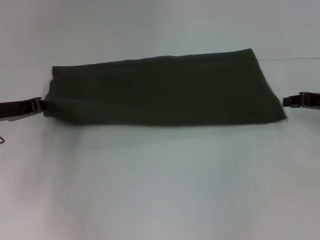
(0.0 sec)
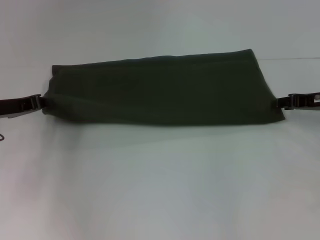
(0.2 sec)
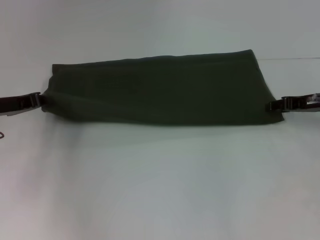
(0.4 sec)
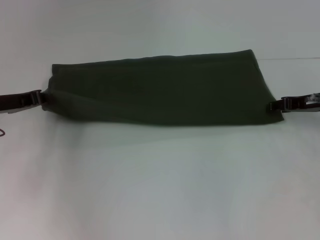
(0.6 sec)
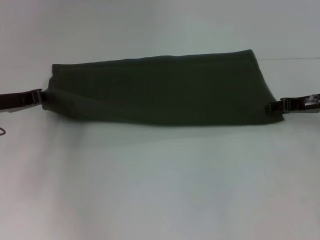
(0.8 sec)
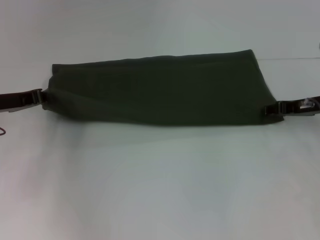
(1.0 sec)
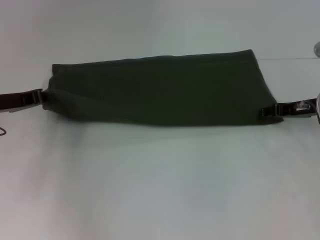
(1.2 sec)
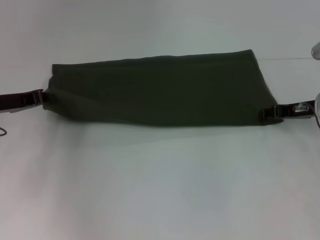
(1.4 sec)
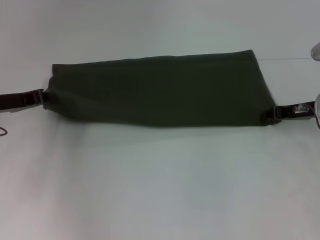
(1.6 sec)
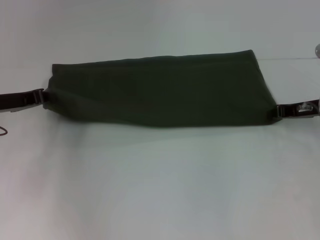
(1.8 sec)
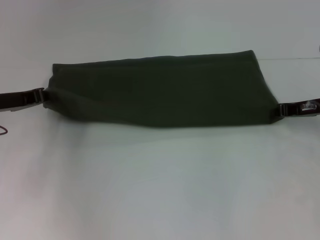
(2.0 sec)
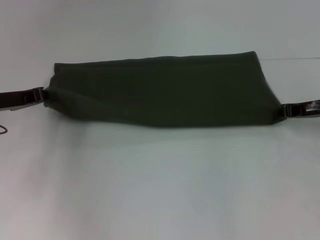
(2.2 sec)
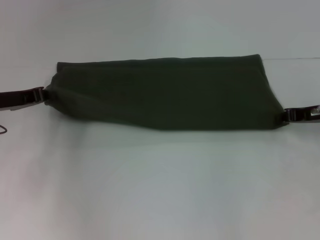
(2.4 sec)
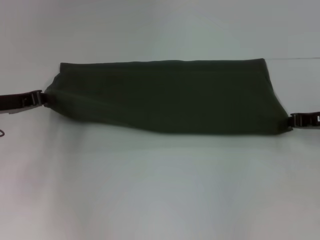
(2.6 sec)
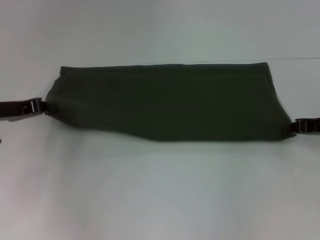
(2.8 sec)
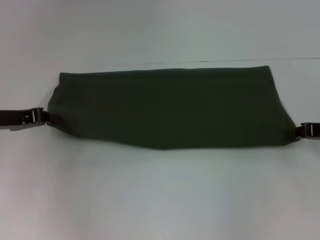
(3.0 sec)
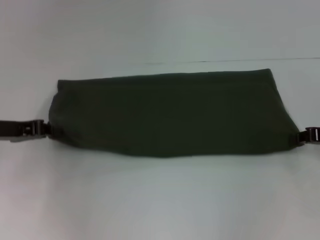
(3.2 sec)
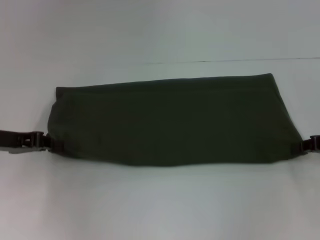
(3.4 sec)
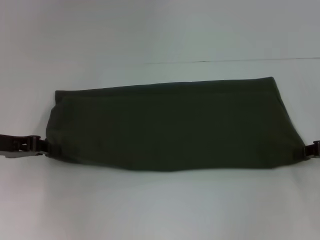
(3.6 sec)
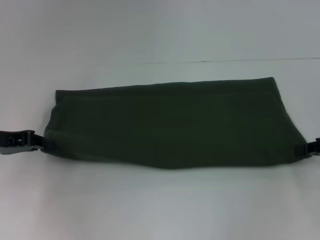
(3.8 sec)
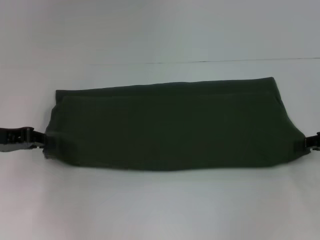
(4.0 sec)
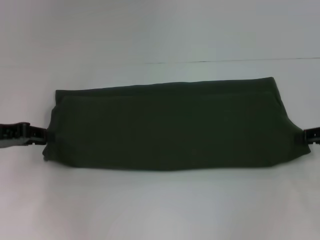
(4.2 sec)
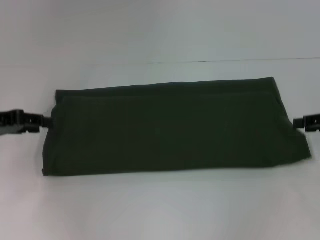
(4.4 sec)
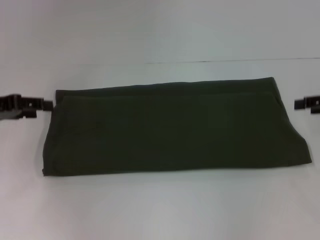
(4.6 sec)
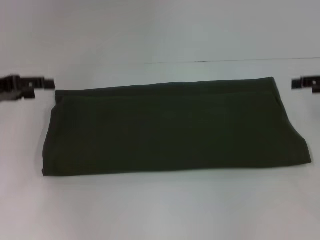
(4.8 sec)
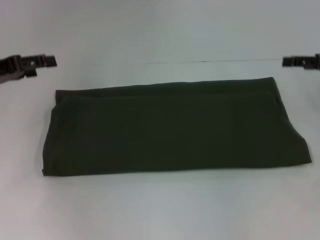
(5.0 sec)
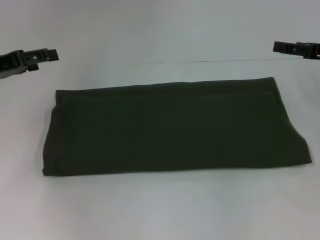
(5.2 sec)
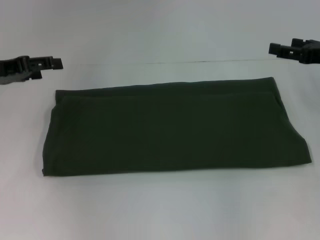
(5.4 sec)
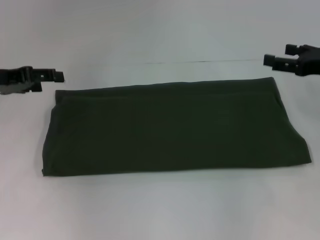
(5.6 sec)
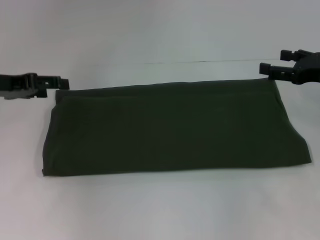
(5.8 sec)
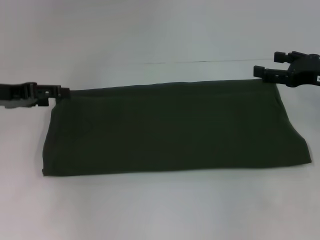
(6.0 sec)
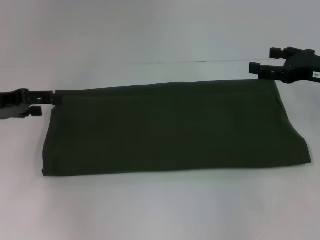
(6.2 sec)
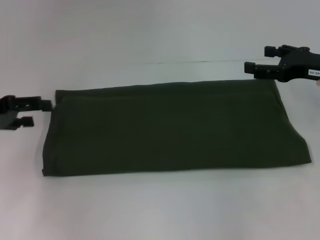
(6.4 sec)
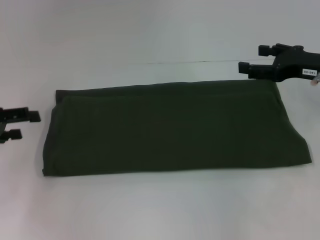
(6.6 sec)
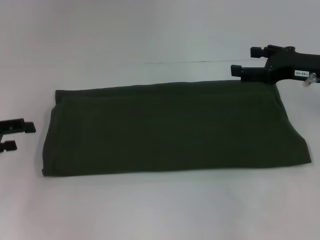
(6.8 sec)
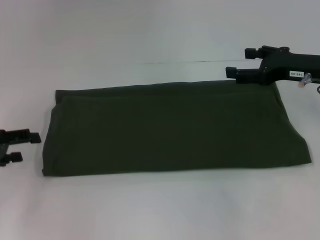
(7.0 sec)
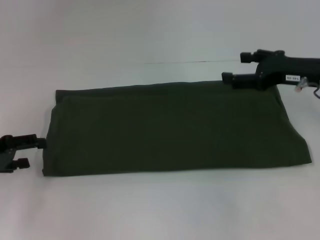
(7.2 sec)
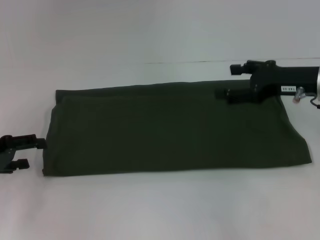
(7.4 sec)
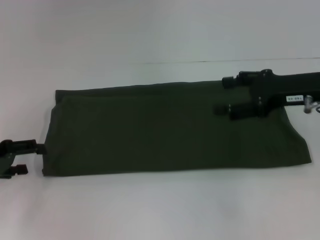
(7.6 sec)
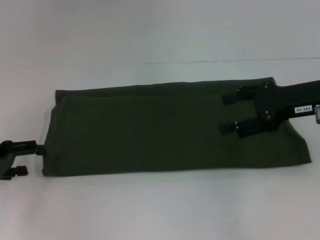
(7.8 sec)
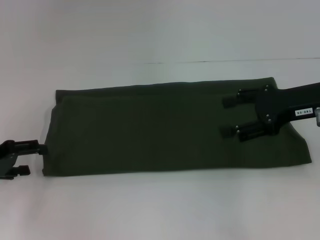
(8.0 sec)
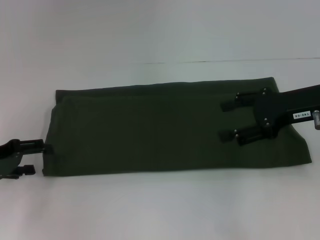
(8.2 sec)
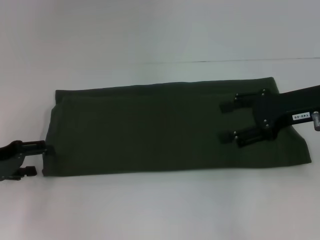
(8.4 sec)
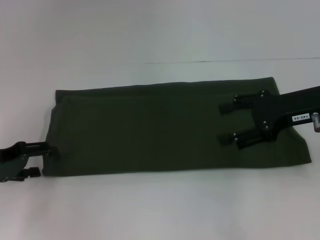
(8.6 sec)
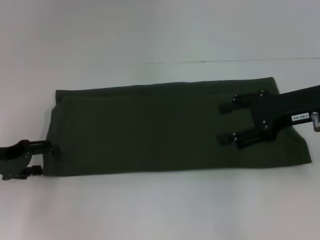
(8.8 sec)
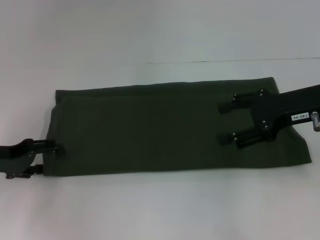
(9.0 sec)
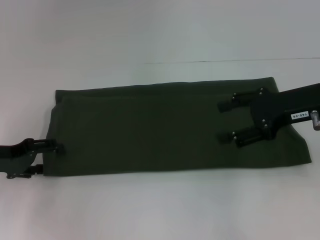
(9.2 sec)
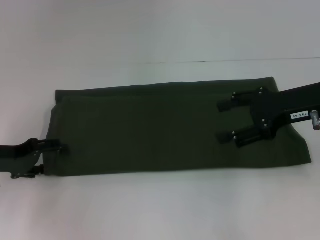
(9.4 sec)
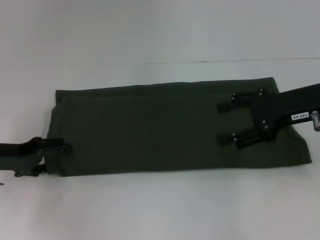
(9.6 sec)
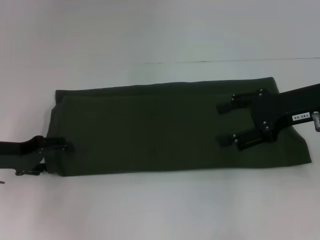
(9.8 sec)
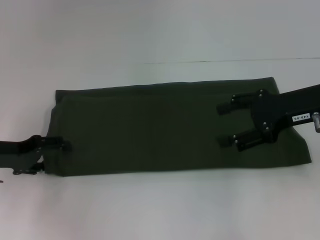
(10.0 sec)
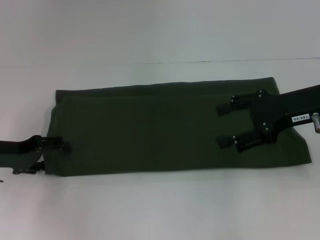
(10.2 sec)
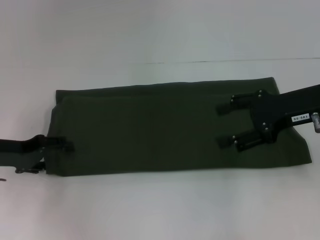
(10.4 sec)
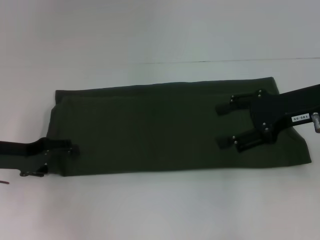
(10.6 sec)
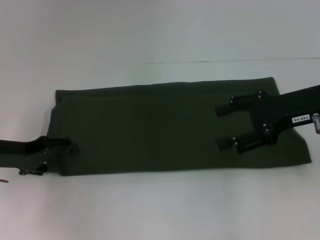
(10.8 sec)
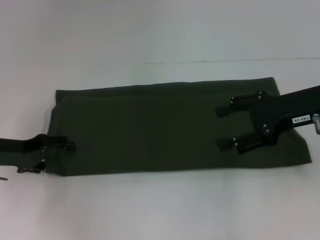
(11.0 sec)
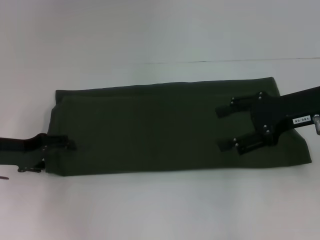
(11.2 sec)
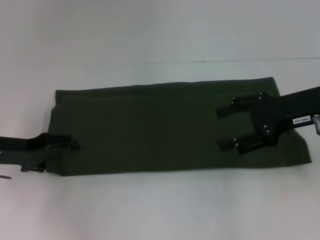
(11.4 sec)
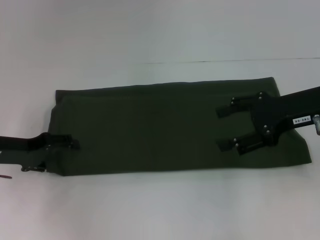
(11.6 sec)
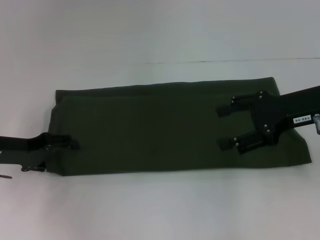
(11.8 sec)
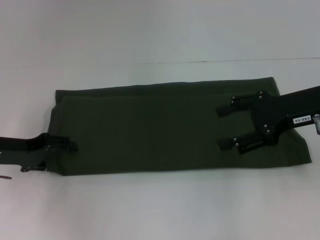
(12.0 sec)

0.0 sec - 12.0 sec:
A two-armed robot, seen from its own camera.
Step, 0.0 sec - 4.2 sec: Pull the clothes with your left hand.
0.0 sec - 1.6 sec: The right gripper shifts by roughly 5 cm.
1.6 sec - 3.0 sec: The right gripper heads backward and to the right, covering about 5 cm, and closes up.
3.0 sec - 4.4 sec: The right gripper opens up.
4.4 sec - 6.0 sec: The right gripper travels to the left by approximately 5 cm, and opens, while the left gripper opens its fingers.
6.0 sec - 7.6 sec: The left gripper travels backward and downward by some 10 cm; the right gripper shifts some 5 cm to the left.
7.6 sec - 10.4 sec: The grippers stay close to where they were, moving slightly.
10.4 sec - 12.0 sec: Neither gripper changes place.

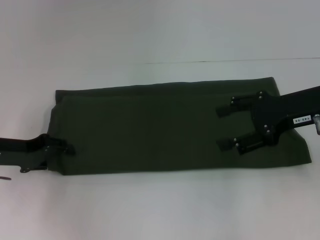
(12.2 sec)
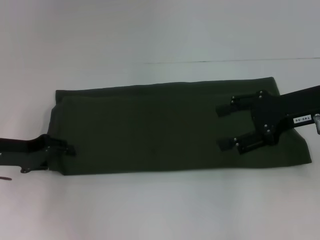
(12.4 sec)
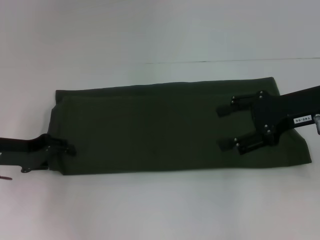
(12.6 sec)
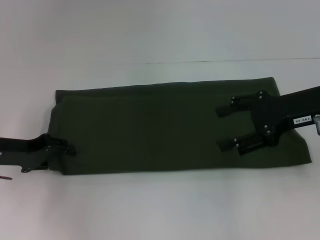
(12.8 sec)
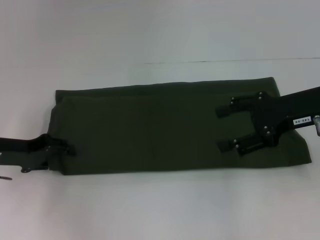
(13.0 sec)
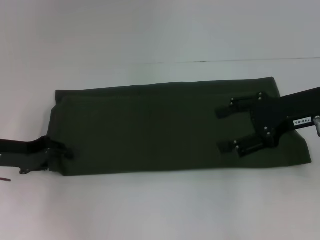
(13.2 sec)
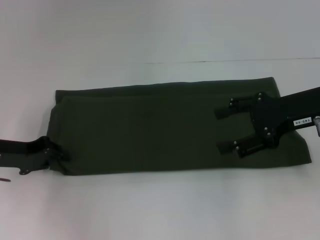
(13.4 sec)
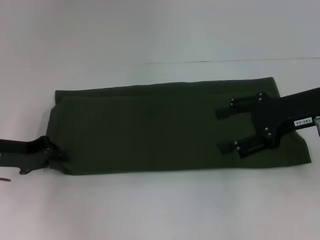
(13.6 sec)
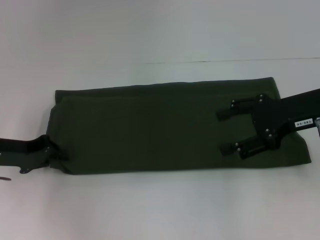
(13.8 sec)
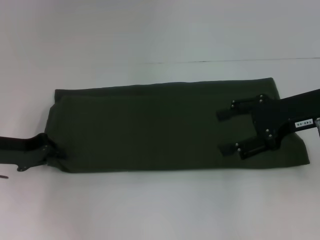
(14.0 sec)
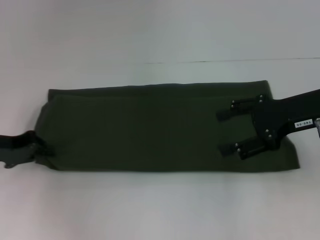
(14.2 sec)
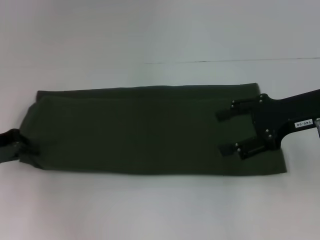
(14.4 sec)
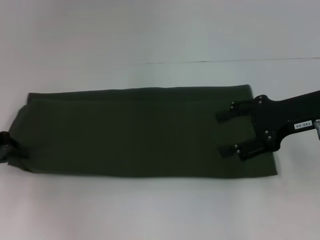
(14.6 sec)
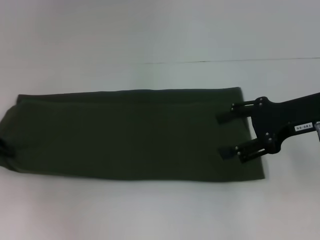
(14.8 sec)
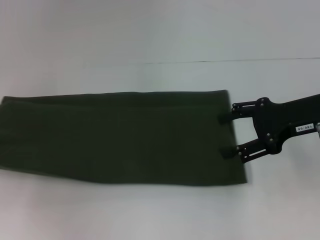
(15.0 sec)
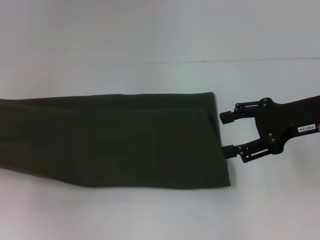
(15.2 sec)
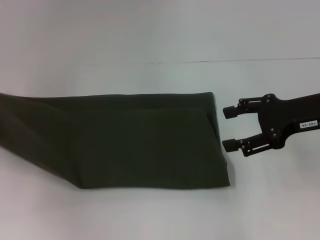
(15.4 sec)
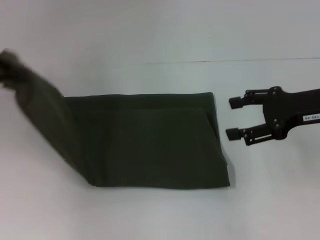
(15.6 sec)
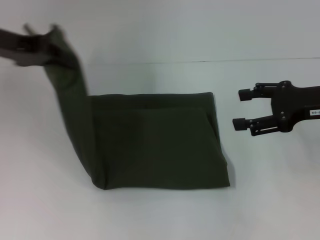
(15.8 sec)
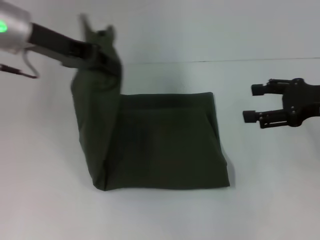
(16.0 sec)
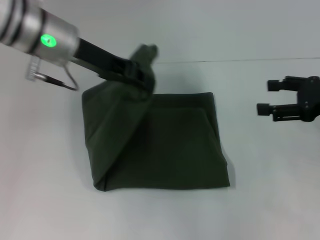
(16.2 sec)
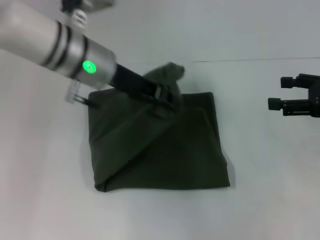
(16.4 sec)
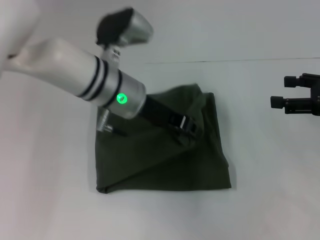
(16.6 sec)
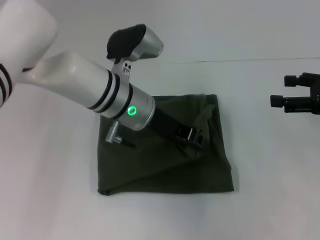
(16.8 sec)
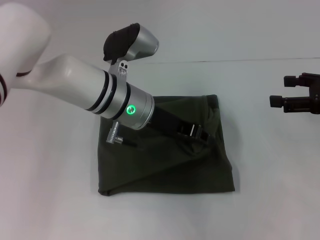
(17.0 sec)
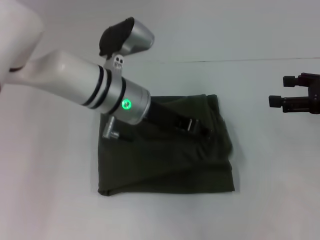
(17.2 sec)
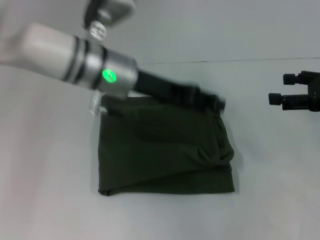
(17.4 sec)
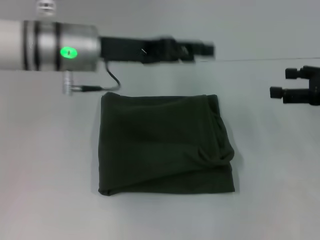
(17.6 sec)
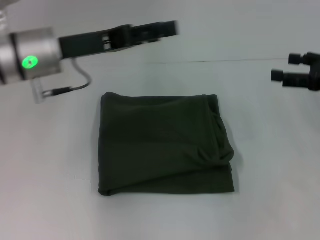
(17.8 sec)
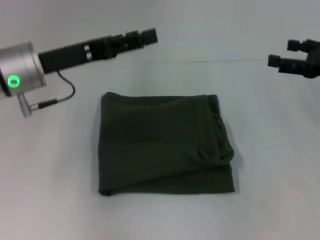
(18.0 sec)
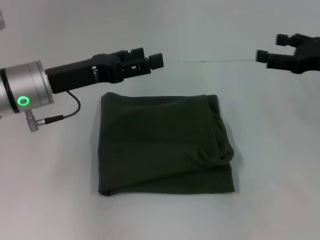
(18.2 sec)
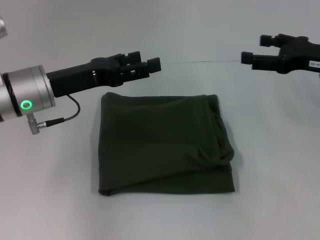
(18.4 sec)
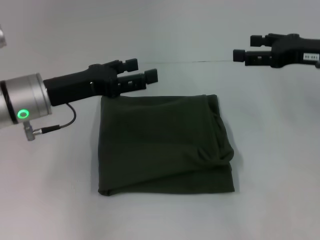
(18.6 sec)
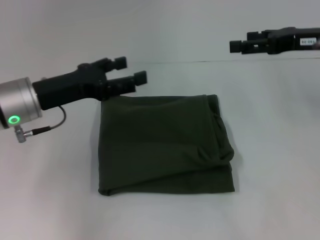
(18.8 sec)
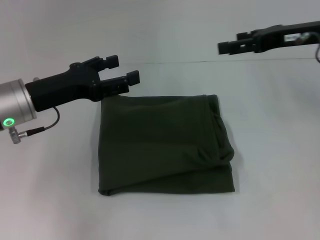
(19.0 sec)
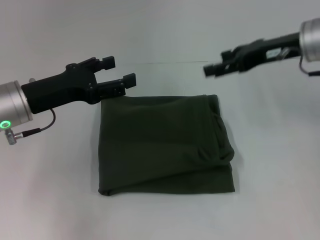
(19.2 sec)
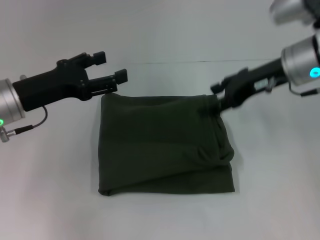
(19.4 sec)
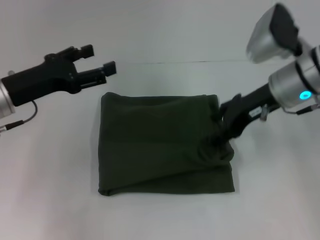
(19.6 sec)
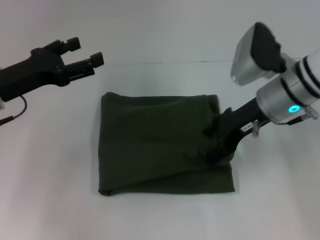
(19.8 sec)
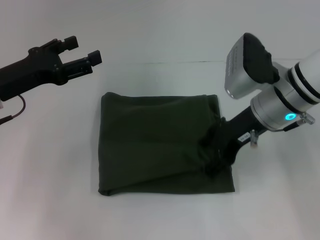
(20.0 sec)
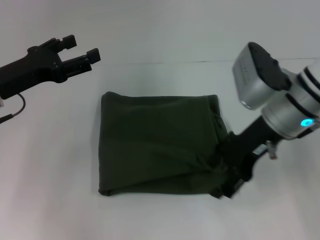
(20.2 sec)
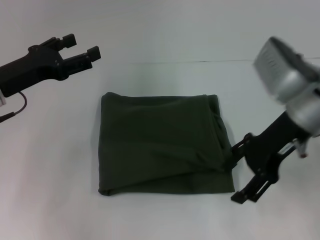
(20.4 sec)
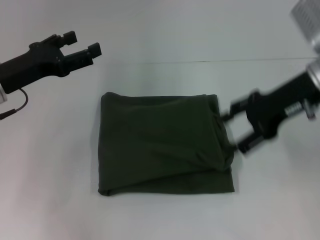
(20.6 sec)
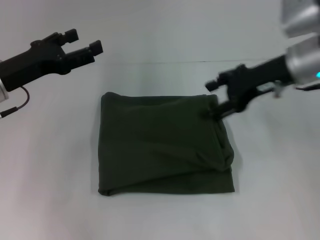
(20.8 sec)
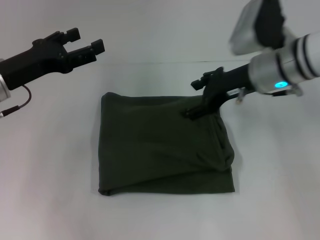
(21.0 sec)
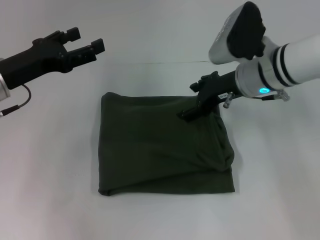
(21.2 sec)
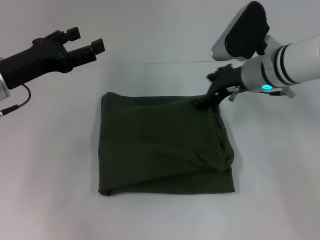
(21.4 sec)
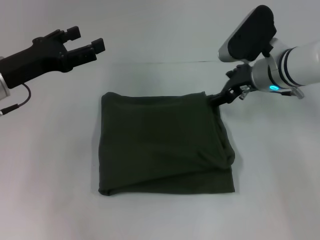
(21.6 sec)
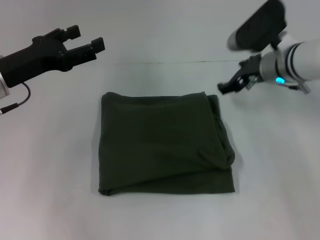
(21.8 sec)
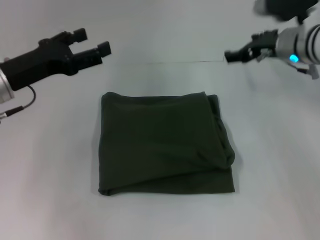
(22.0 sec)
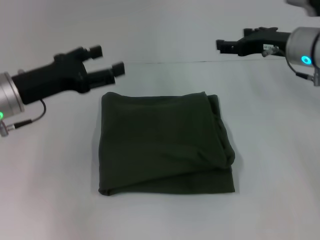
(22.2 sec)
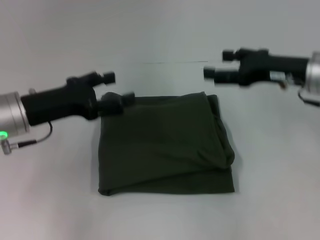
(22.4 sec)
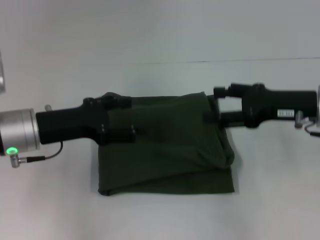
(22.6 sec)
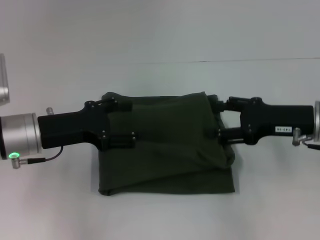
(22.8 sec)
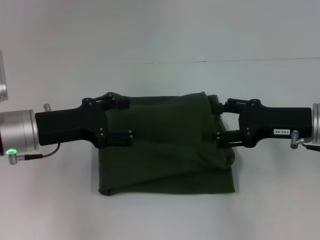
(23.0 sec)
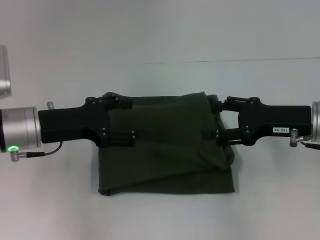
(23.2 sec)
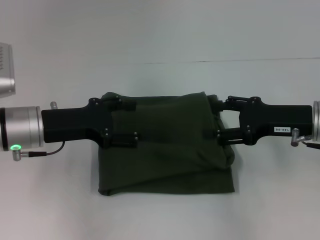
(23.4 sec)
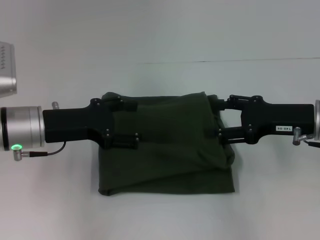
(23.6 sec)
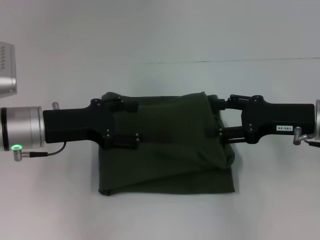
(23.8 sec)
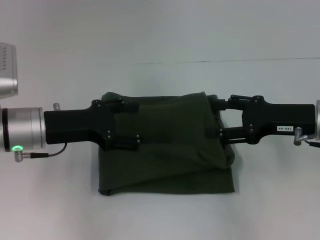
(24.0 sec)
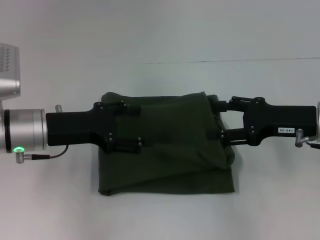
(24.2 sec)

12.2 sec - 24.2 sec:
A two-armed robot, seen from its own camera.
Step, 12.2 sec - 17.2 sec: Fold the clothes with your left hand.
13.8 sec - 15.2 sec: The left gripper goes about 15 cm to the left and upward.
15.2 sec - 16.6 sec: The left gripper travels to the right by approximately 35 cm, while the right gripper travels to the right by approximately 10 cm.
16.6 sec - 18.2 sec: The left gripper shifts some 10 cm to the left, and opens its fingers.
18.2 sec - 19.8 sec: The left gripper heads to the left, covering approximately 5 cm. Meanwhile the right gripper goes some 15 cm to the left.
21.2 sec - 22.6 sec: The right gripper travels to the right and backward by approximately 10 cm, while the left gripper ends up some 5 cm from where it was.
22.6 sec - 24.2 sec: The grippers stay close to where they were, moving slightly.
